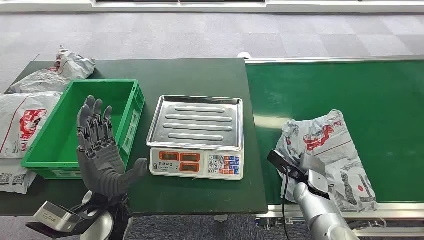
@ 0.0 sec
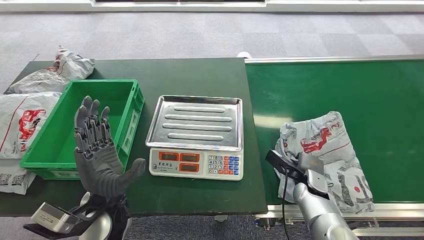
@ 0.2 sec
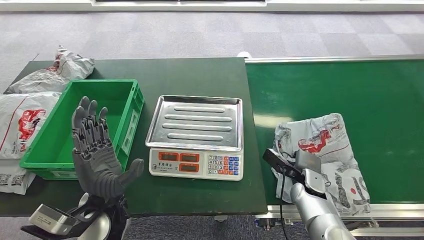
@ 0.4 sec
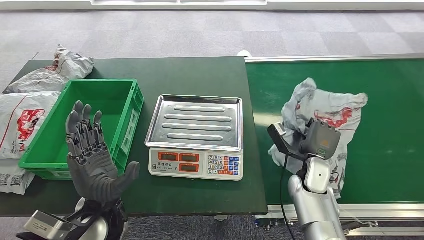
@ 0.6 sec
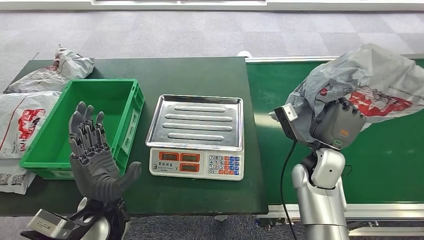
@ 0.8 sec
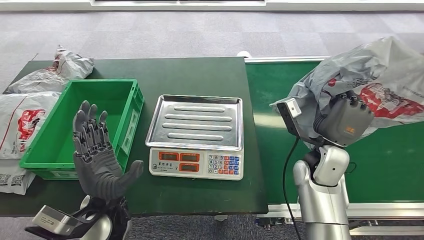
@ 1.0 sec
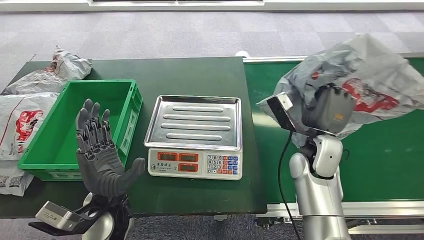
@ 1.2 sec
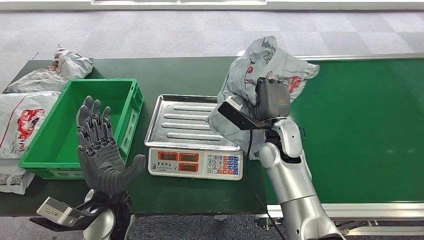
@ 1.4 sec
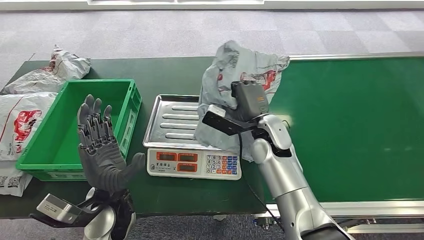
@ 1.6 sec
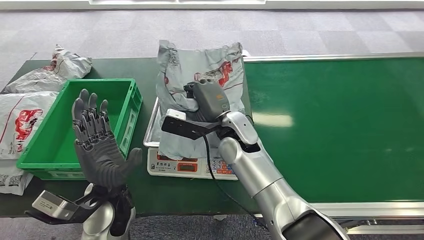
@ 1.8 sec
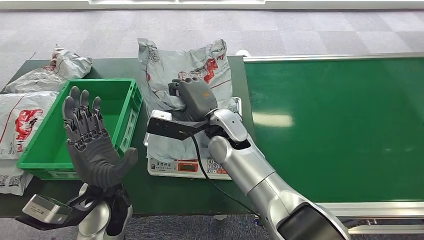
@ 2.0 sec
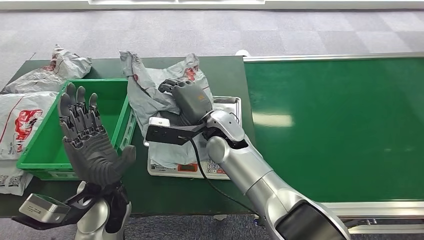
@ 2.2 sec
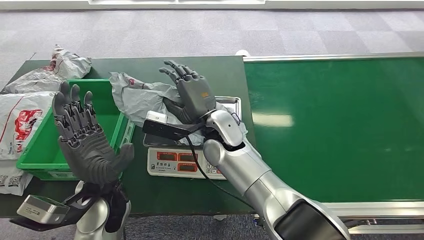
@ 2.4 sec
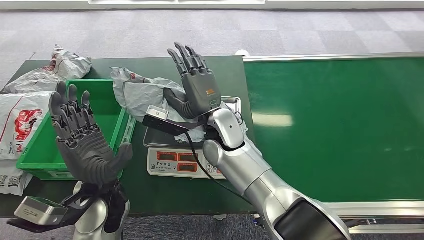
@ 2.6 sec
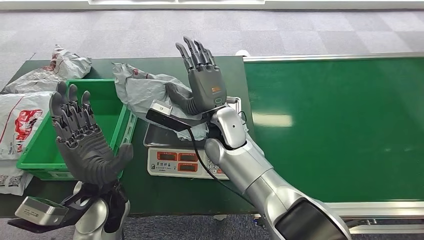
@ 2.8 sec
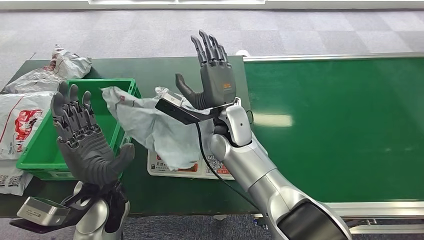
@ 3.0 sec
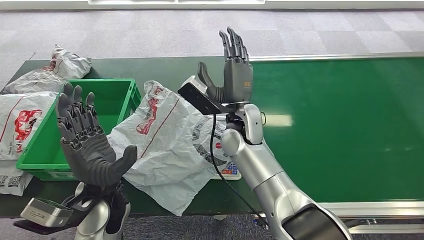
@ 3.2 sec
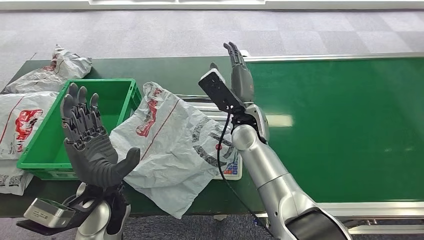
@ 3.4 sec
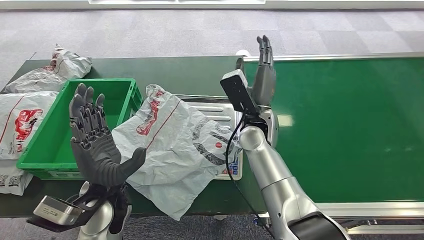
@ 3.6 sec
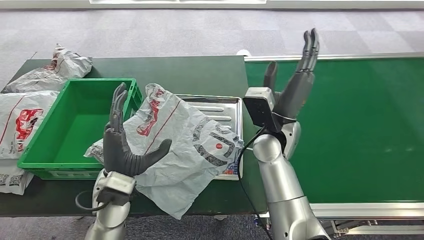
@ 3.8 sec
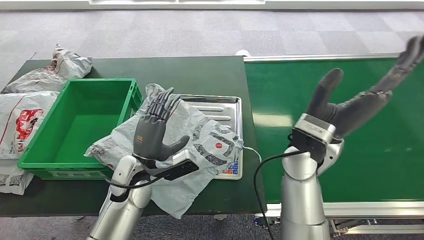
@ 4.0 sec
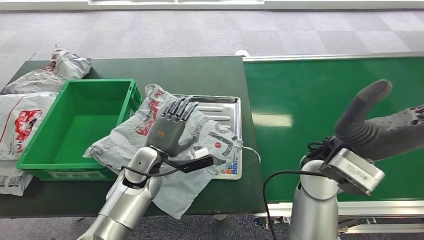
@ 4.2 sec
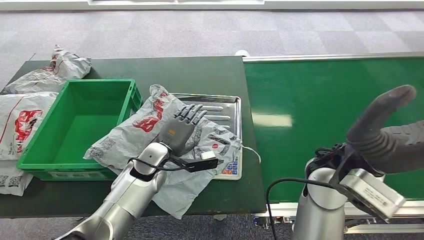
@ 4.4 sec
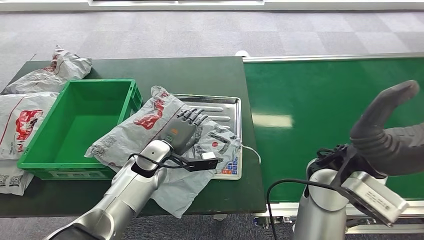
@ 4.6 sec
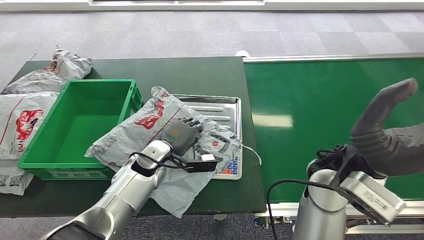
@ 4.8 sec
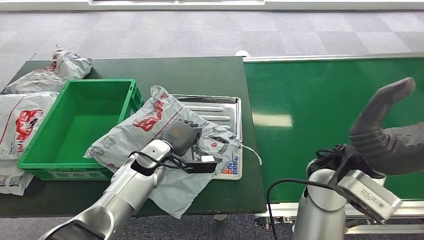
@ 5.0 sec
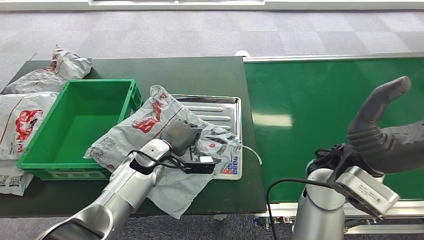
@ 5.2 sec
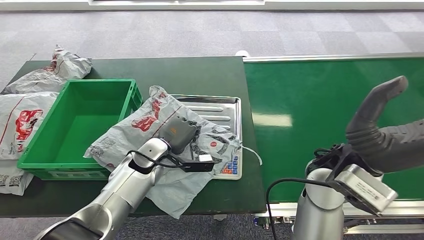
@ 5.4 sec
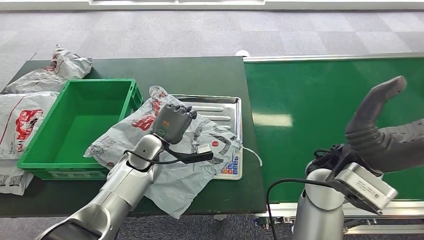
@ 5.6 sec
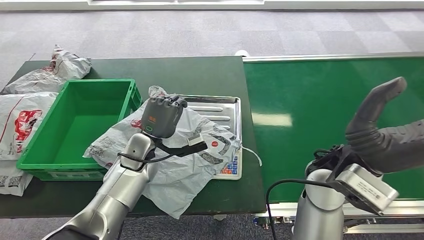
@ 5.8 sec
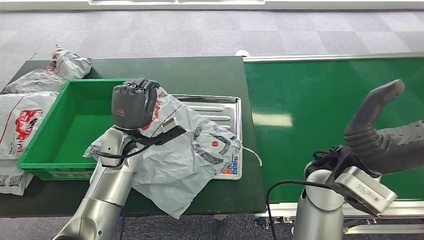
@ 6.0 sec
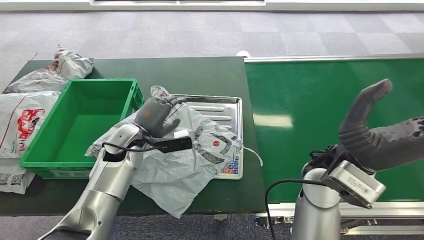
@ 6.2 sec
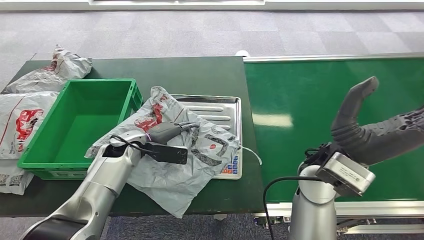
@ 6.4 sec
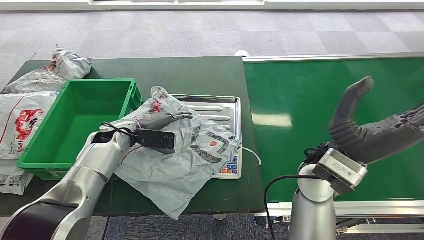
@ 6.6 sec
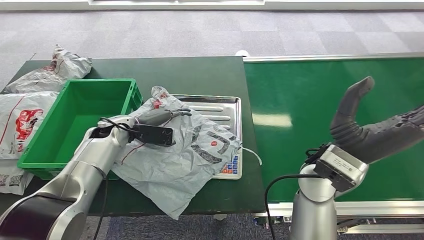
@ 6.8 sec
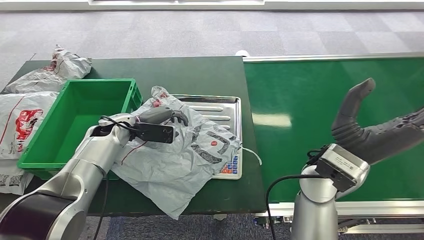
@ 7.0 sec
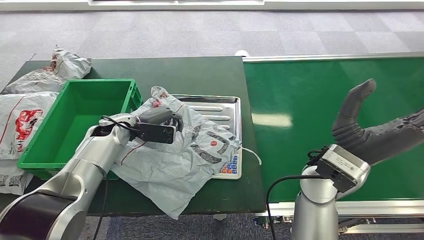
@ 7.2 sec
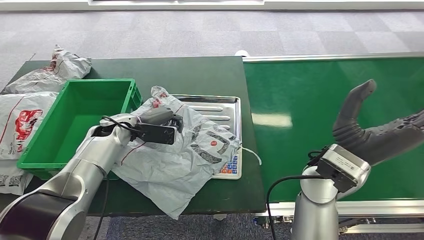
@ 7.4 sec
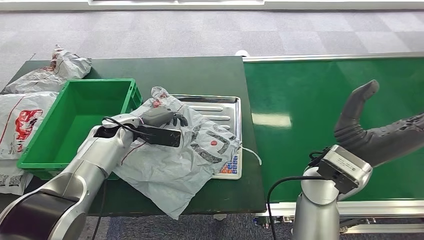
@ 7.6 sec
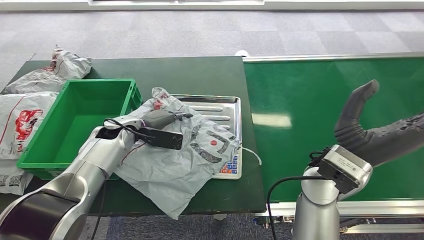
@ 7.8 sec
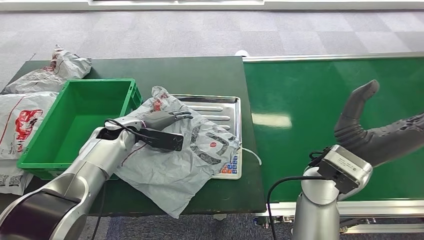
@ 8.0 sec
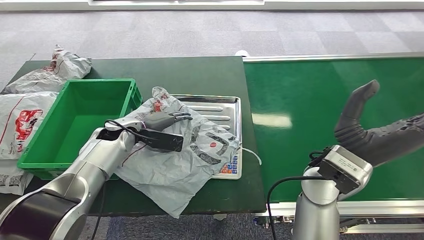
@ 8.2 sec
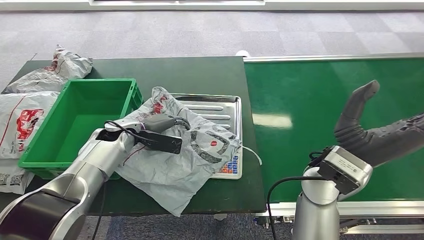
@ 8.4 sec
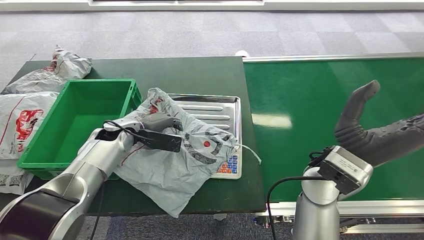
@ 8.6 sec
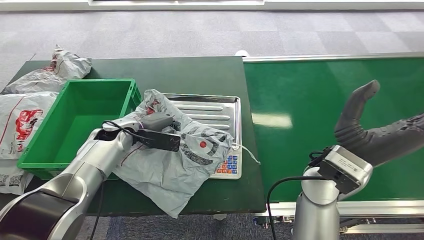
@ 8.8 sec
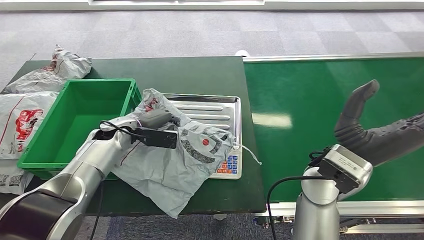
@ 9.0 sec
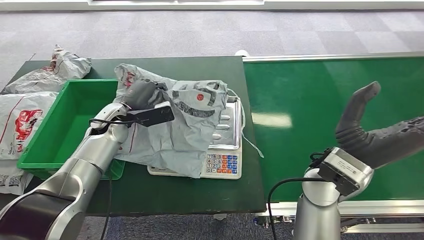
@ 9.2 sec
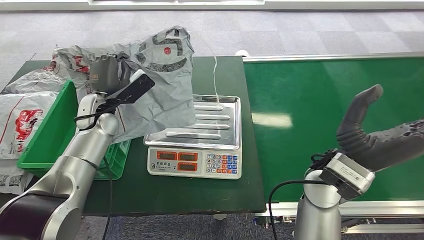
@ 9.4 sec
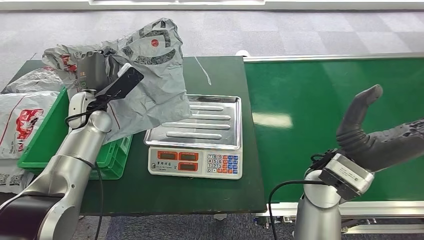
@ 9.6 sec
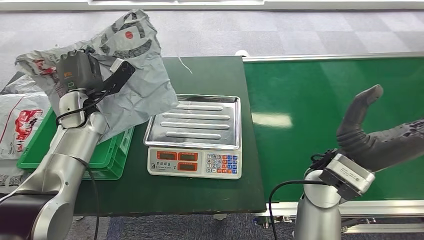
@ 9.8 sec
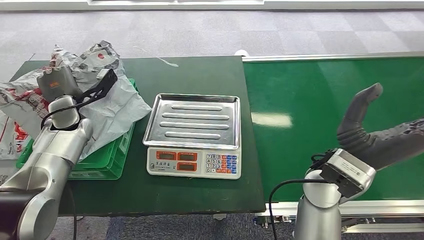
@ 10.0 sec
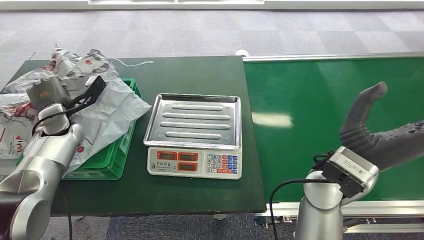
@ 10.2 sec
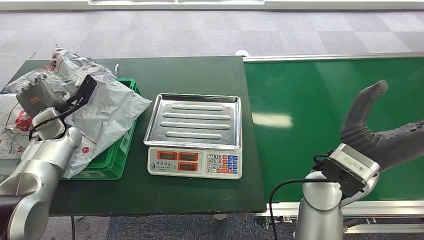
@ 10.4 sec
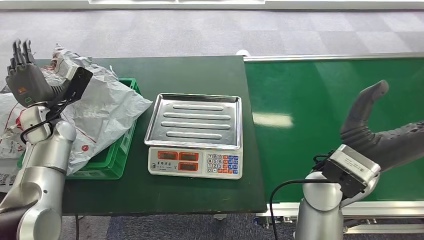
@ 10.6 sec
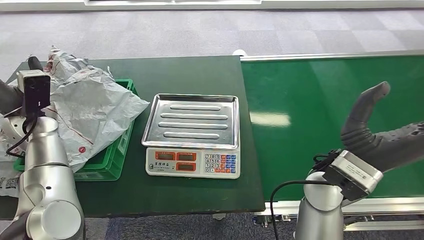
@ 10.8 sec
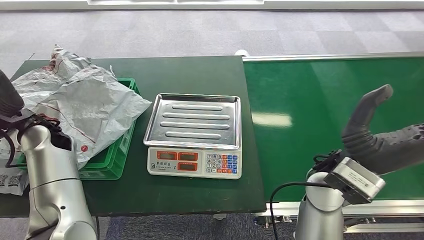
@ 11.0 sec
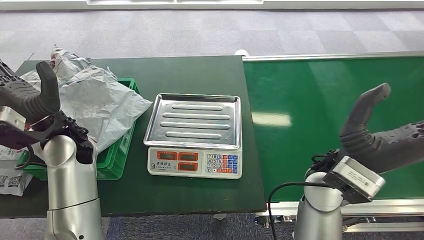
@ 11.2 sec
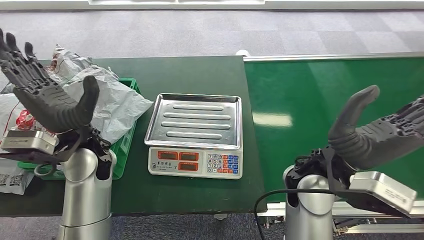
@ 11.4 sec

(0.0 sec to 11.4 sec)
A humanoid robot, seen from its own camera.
Step, 0.0 sec - 1.2 sec: Pick up the package from the conveyor belt.
Step, 1.4 sec - 3.8 sec: Place the package onto the inbound machine.
Step, 4.0 sec - 9.2 sec: Pick up the package from the inbound machine.
Step, 9.4 sec - 11.4 sec: Place the package into the parcel locker.
7.2 sec - 8.6 sec: The hands stay close to where they were, moving slightly.
